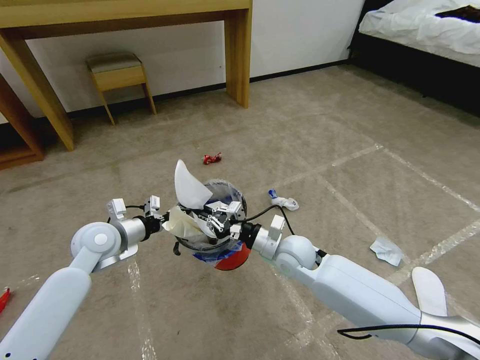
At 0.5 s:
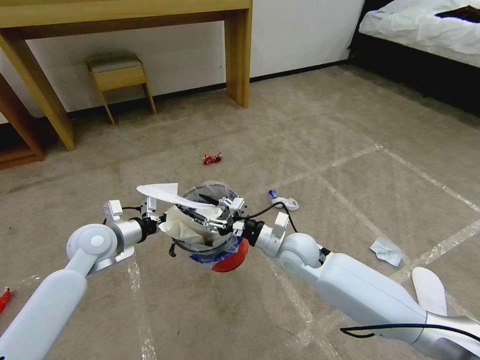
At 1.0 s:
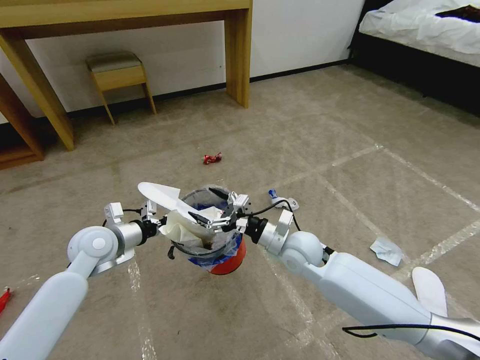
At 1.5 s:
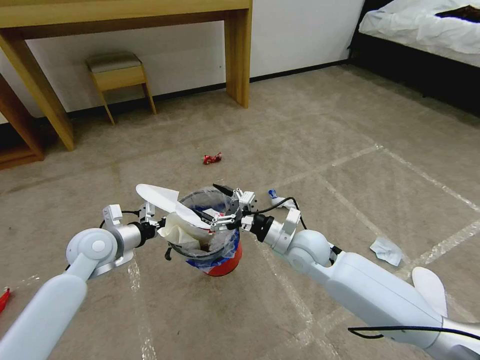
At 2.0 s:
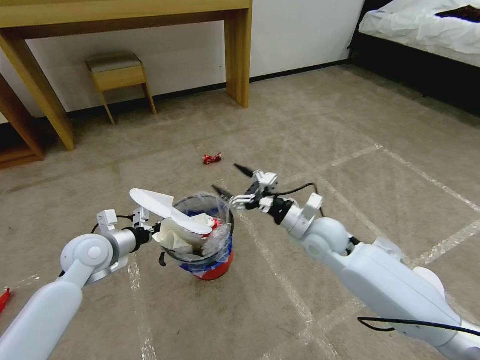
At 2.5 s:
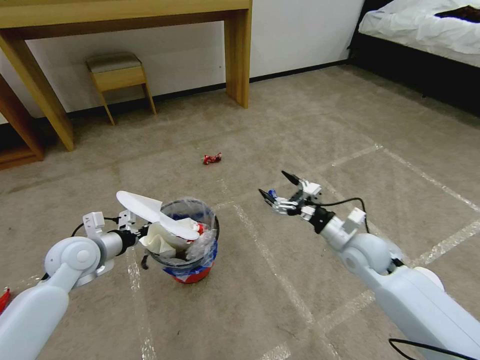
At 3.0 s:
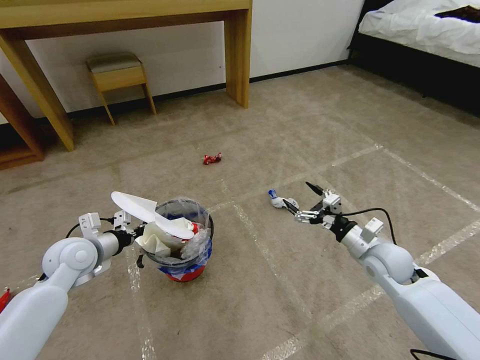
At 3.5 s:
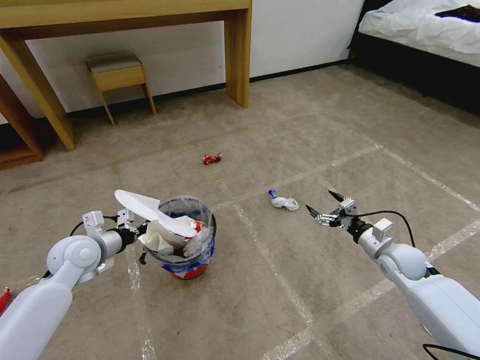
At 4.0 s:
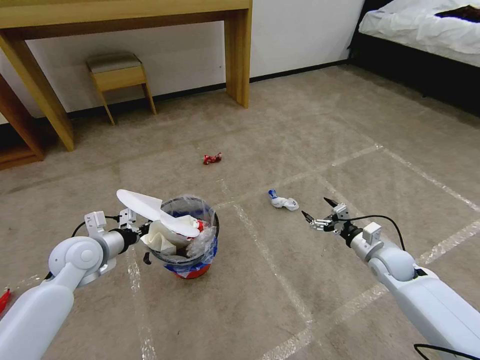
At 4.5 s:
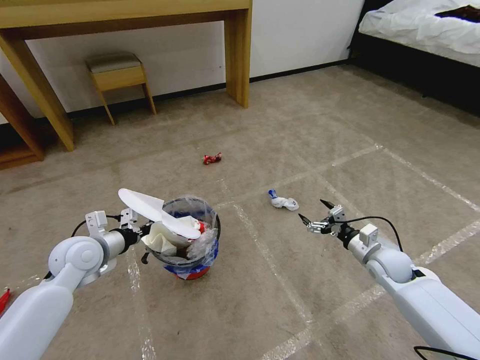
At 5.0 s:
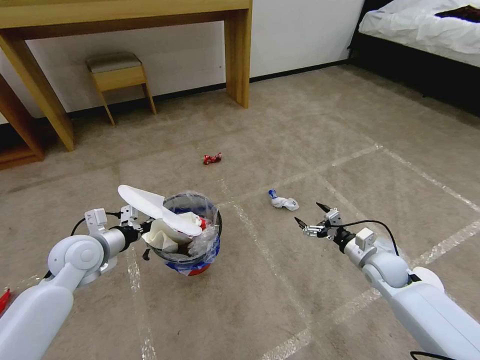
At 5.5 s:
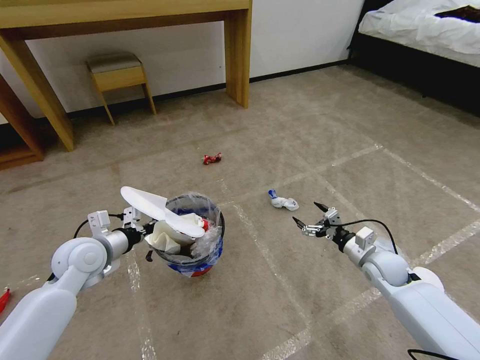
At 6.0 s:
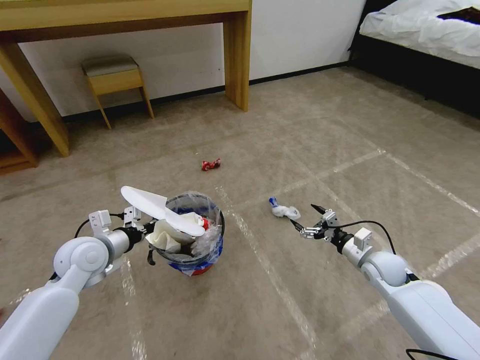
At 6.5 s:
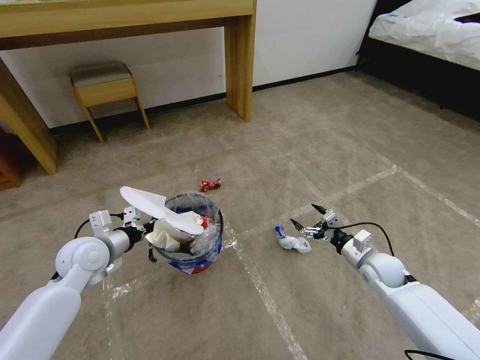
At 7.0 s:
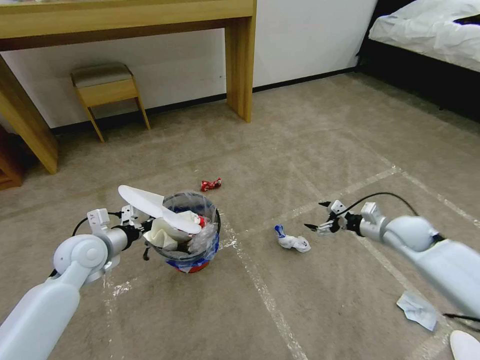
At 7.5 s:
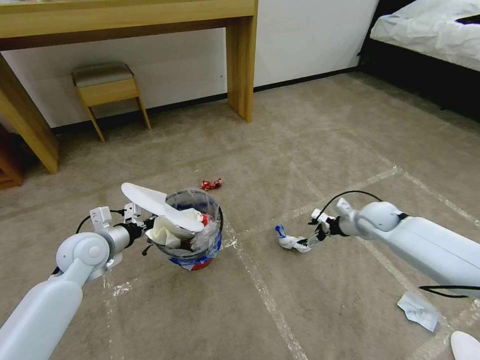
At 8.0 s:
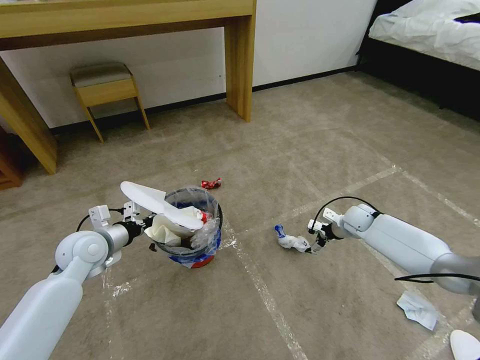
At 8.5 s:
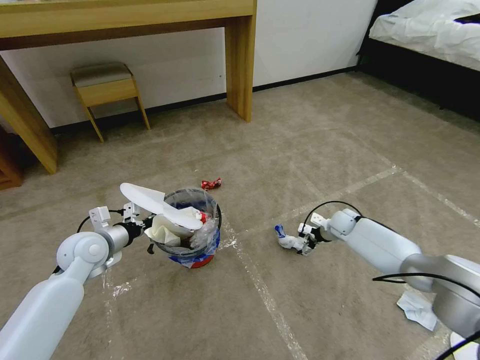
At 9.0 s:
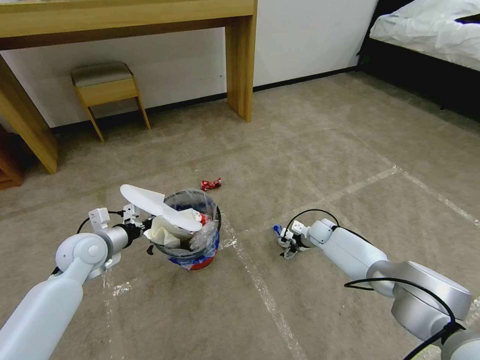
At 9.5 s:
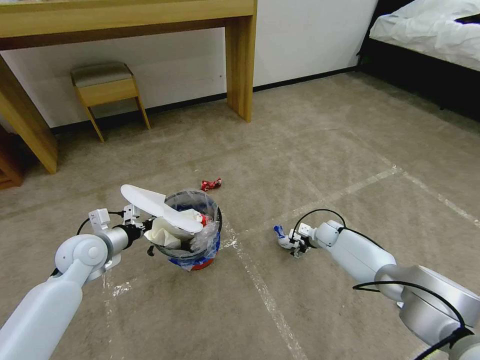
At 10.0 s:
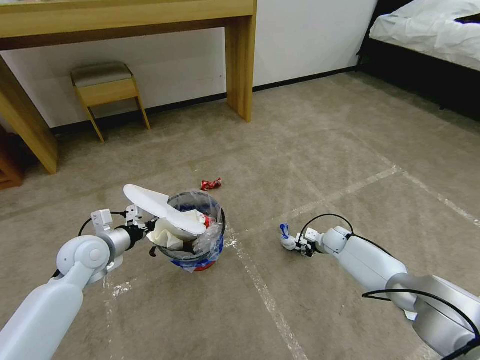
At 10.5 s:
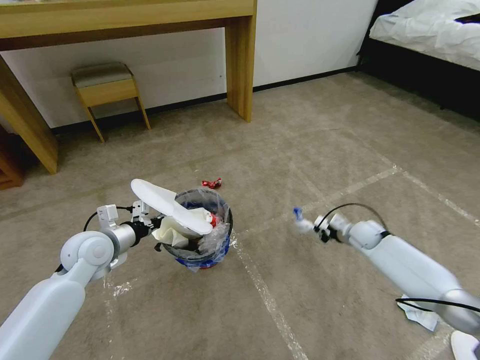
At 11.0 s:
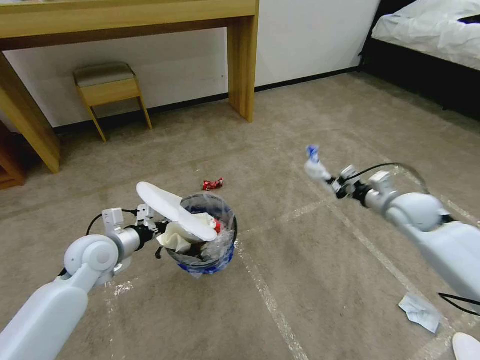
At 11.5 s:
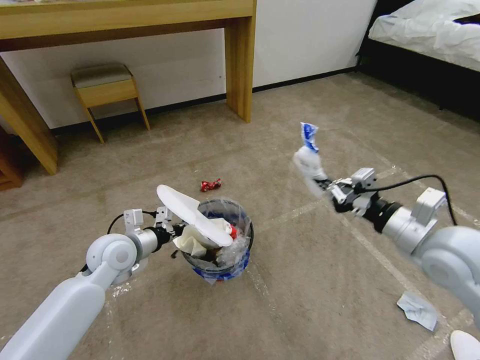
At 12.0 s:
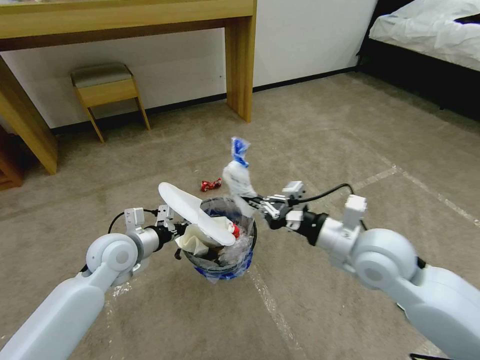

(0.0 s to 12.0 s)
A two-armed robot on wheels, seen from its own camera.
Task of the whole recording: Pick up the trash bin and place the garbage on the floor into it.
0.0 s - 2.0 s: The right gripper moves to the right and upward, roughly 10 cm, and opens its fingers.
2.0 s - 4.0 s: The right gripper travels to the right and downward by about 20 cm.
4.0 s - 6.0 s: There are only small adjustments of the grippers.
6.0 s - 8.0 s: The right gripper shifts some 15 cm forward.
8.0 s - 10.0 s: The right gripper is displaced downward by some 10 cm, and closes up.
10.0 s - 12.0 s: The left gripper is displaced to the right by roughly 5 cm. Meanwhile the right gripper goes some 35 cm upward and backward, and closes.

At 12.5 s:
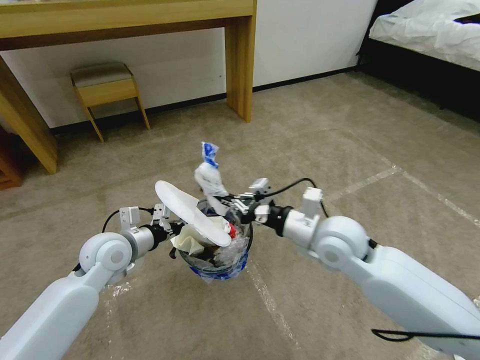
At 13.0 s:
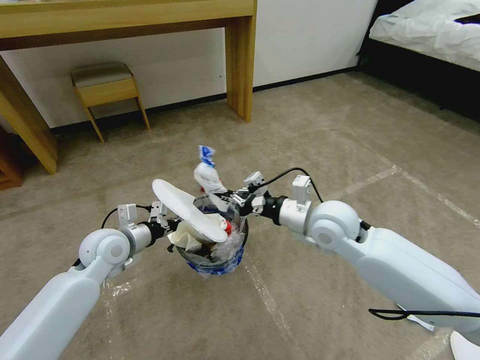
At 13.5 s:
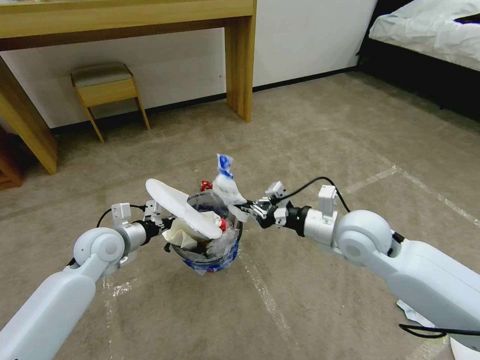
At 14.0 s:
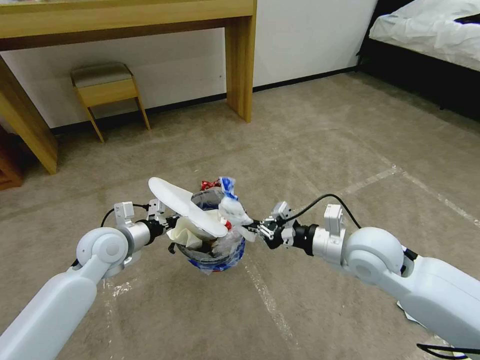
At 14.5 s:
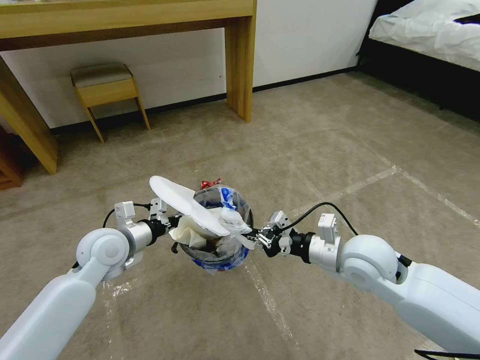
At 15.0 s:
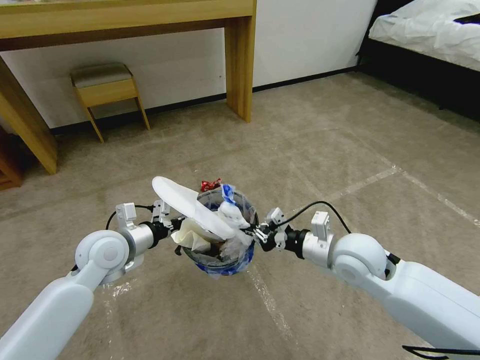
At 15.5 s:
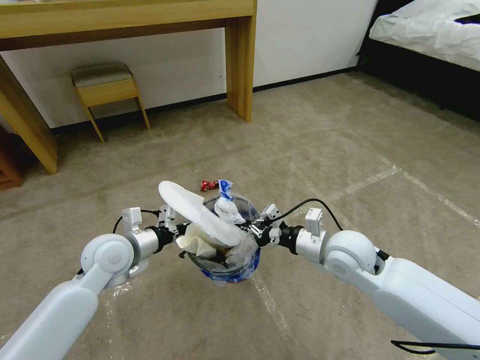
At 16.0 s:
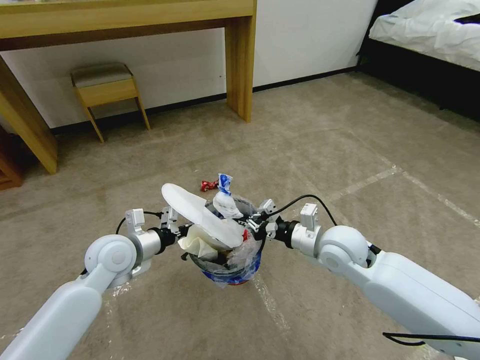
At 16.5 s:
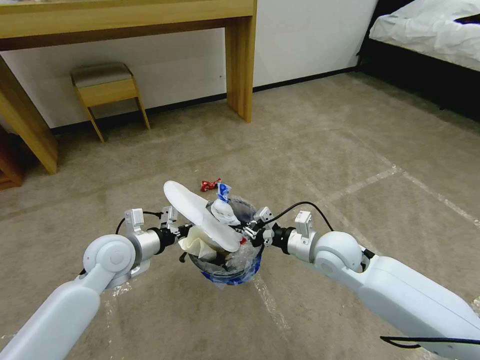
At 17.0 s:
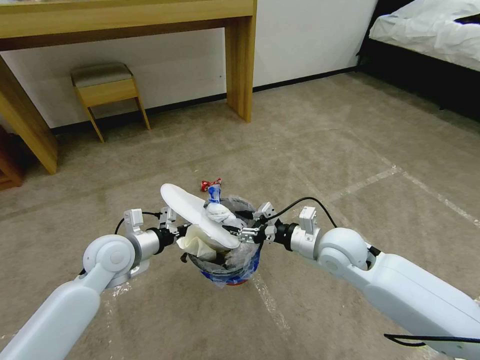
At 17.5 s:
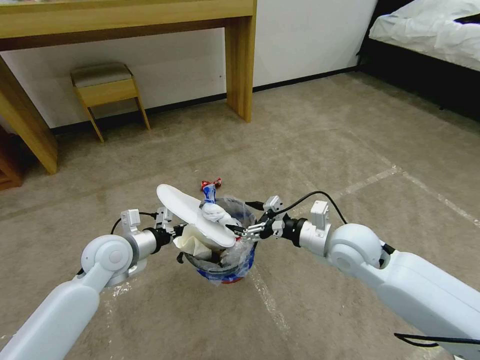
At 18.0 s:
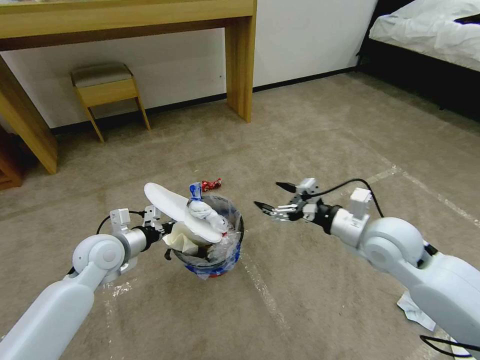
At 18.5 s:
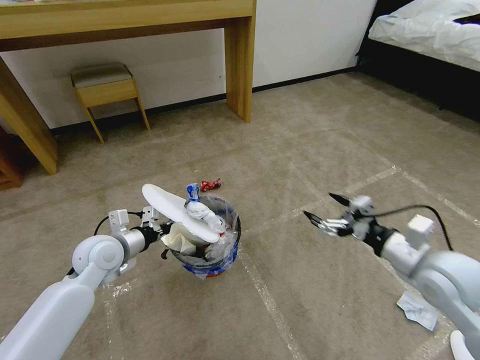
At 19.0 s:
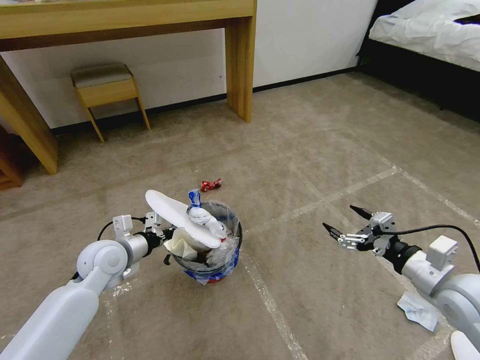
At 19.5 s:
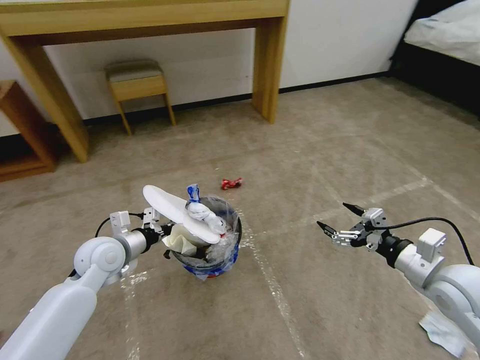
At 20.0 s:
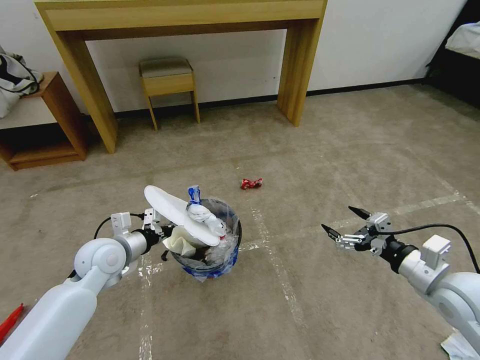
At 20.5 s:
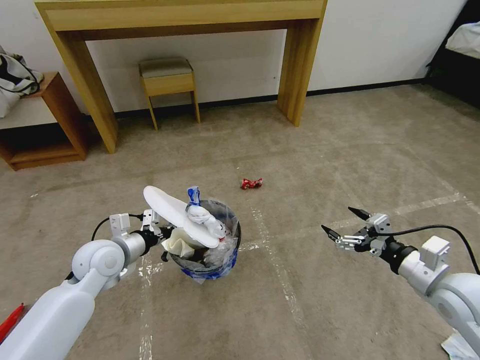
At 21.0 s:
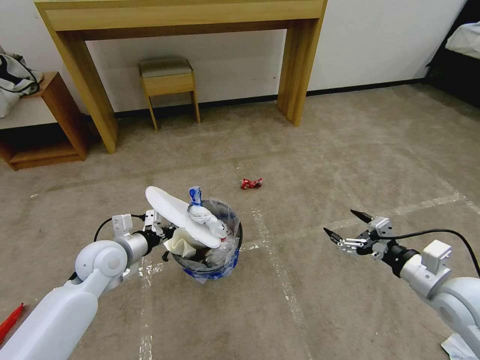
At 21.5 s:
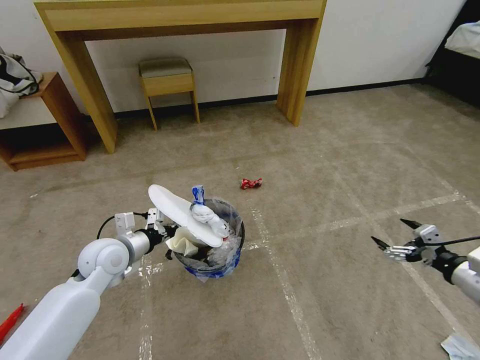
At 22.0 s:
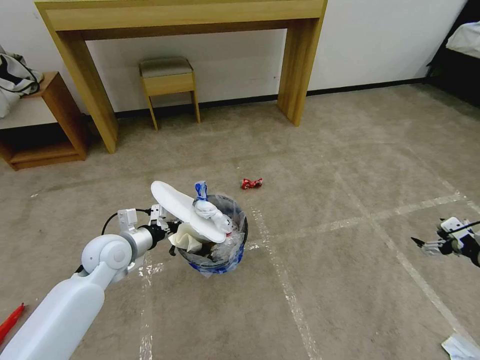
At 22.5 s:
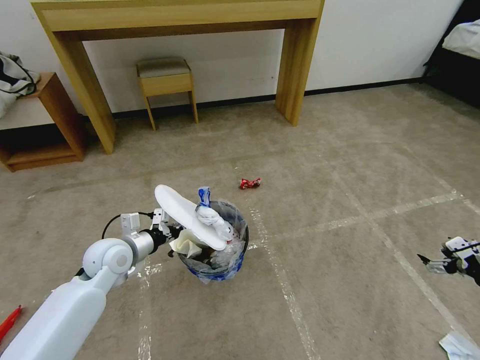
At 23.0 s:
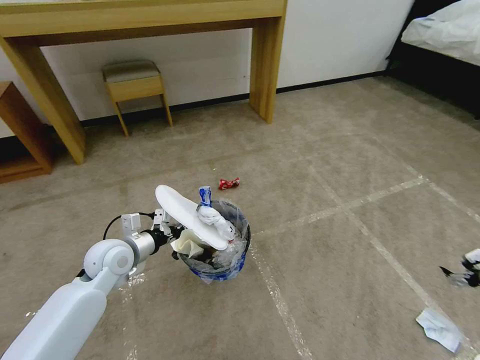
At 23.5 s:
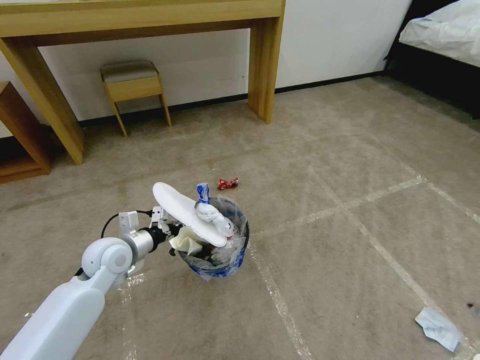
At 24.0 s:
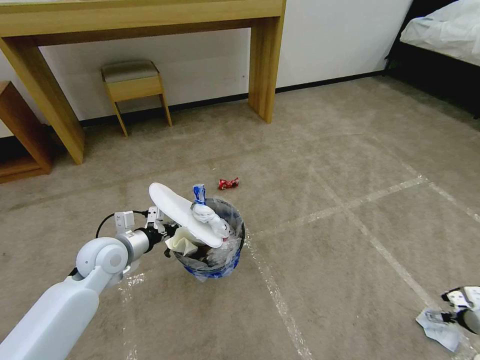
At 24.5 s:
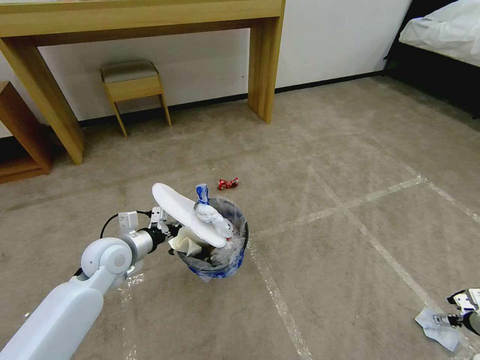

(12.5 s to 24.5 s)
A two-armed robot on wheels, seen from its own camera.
Task of the whole recording: Pick up the trash bin and place the garbage on the floor into it.
12.5 s - 14.5 s: The right gripper moves to the right, about 5 cm.
14.5 s - 16.5 s: The right gripper shifts by roughly 5 cm.
16.5 s - 18.5 s: The right gripper goes approximately 20 cm to the right, backward and upward, and opens its fingers.
18.5 s - 20.5 s: The right gripper shifts by approximately 5 cm.
20.5 s - 22.5 s: The right gripper goes approximately 20 cm to the right.
22.5 s - 24.5 s: The right gripper travels downward and to the right by some 20 cm.

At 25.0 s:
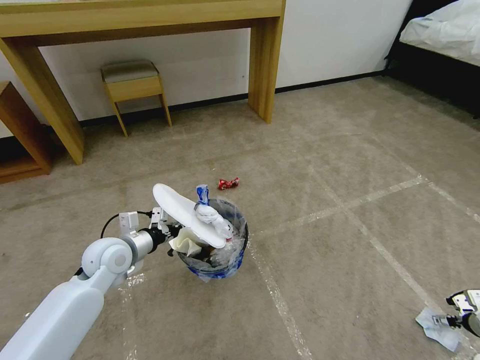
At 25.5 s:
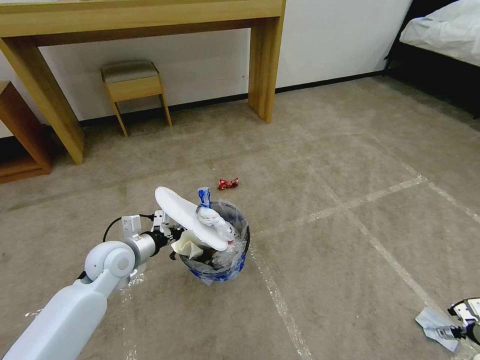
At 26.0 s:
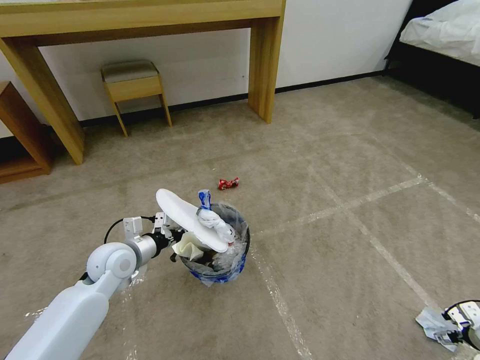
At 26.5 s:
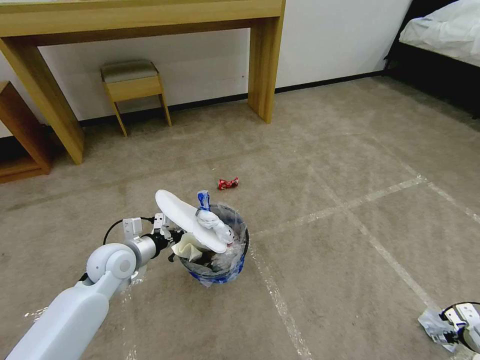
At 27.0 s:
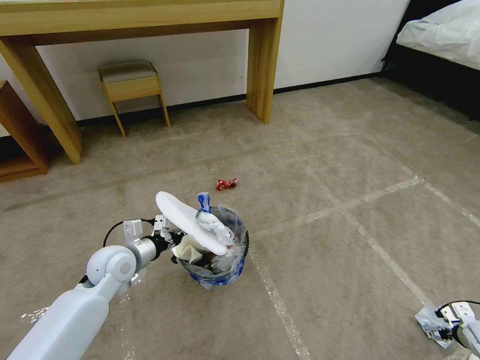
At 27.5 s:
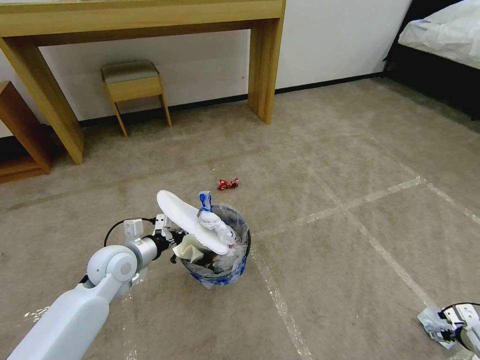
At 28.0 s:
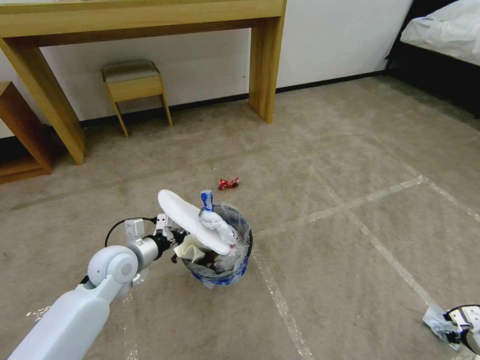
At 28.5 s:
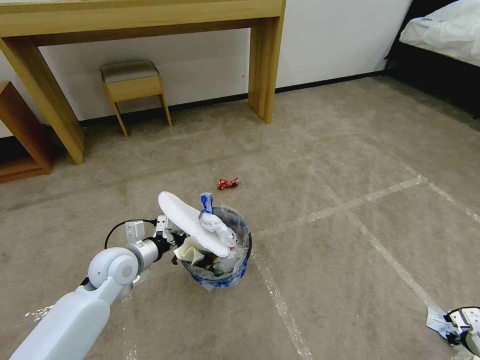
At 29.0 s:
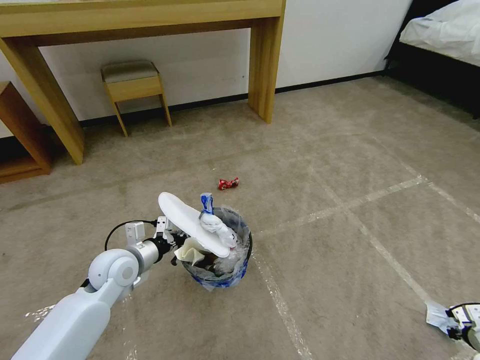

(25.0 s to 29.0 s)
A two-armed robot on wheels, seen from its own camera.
Task of the whole recording: Pick up the trash bin and place the garbage on the floor into it.
25.0 s - 27.0 s: The grippers move only a little.
27.0 s - 29.0 s: The right gripper closes.
